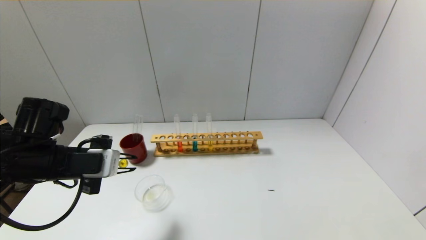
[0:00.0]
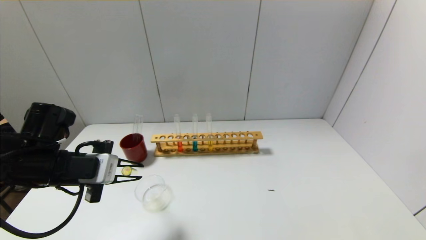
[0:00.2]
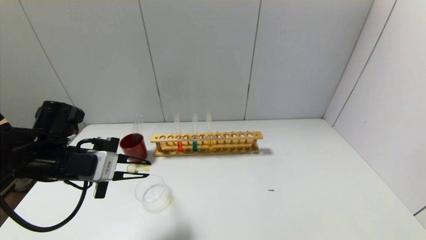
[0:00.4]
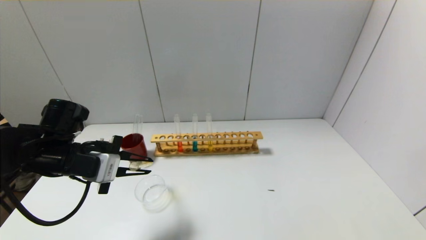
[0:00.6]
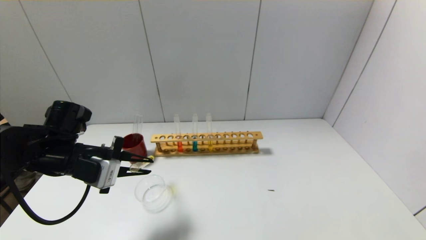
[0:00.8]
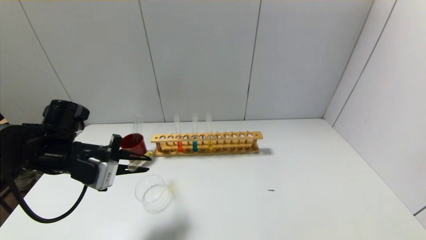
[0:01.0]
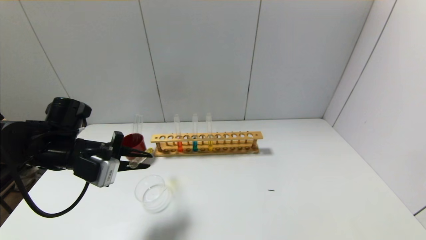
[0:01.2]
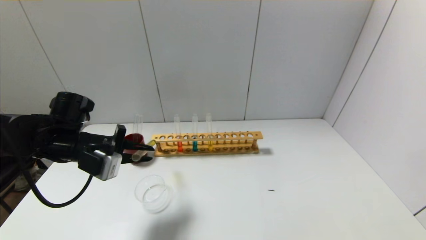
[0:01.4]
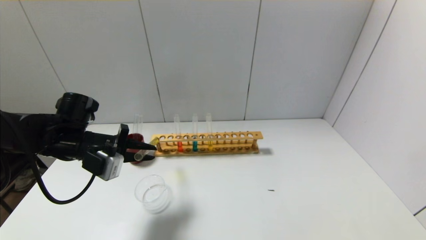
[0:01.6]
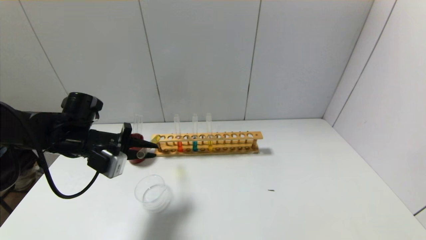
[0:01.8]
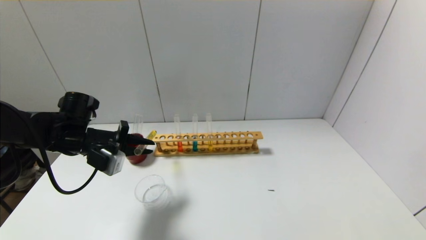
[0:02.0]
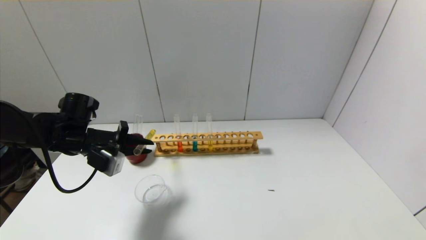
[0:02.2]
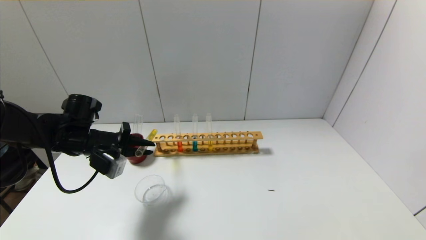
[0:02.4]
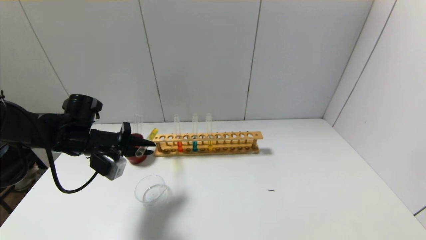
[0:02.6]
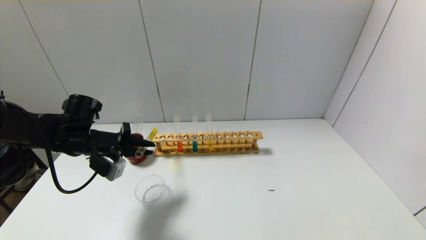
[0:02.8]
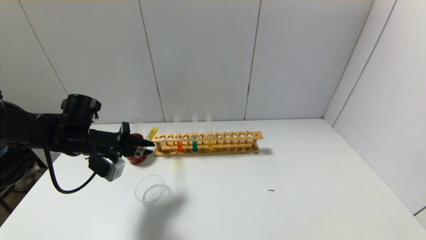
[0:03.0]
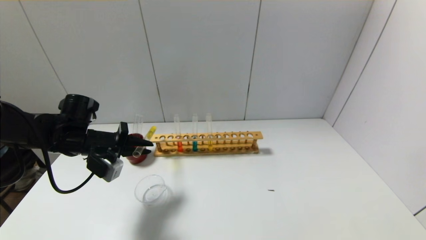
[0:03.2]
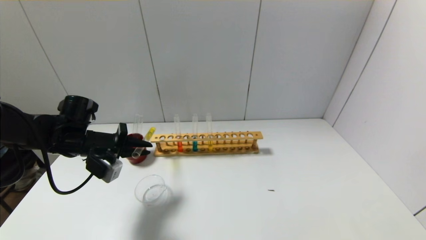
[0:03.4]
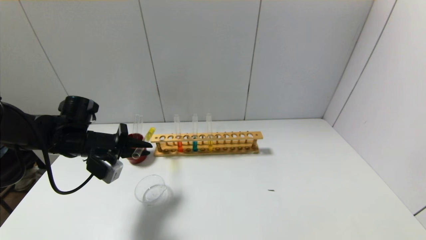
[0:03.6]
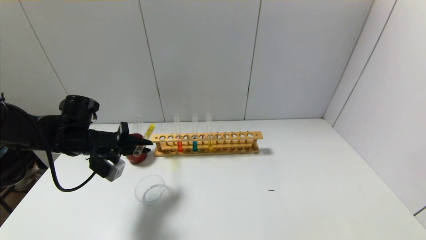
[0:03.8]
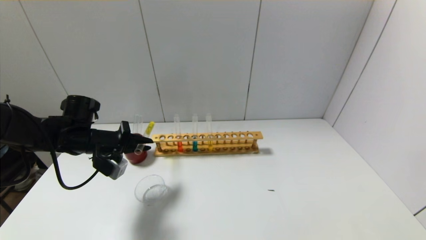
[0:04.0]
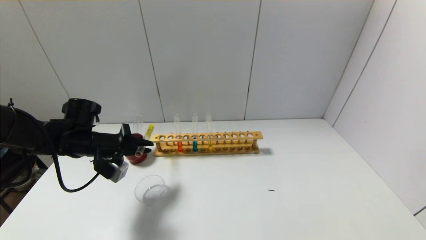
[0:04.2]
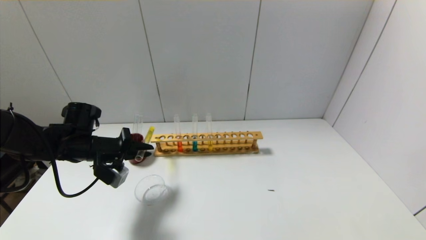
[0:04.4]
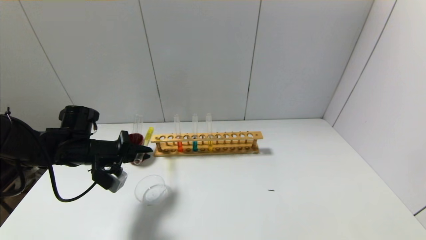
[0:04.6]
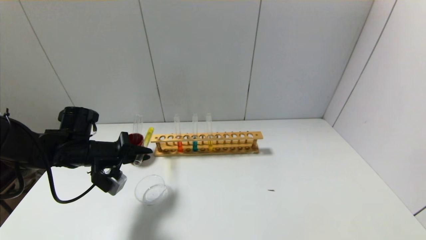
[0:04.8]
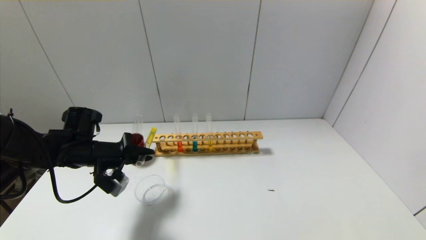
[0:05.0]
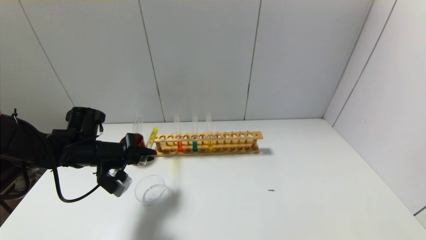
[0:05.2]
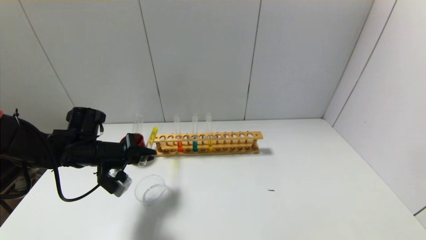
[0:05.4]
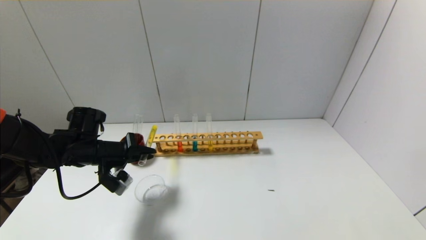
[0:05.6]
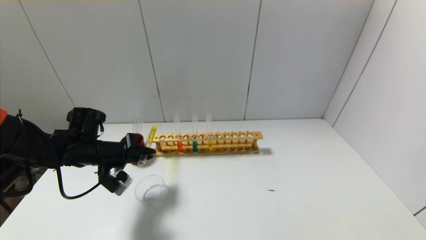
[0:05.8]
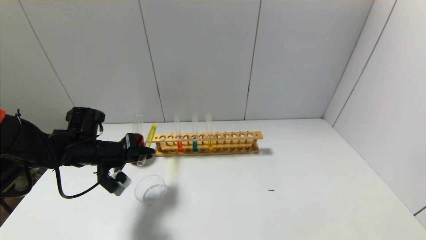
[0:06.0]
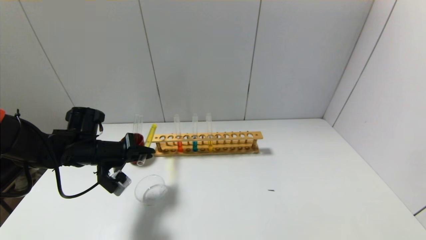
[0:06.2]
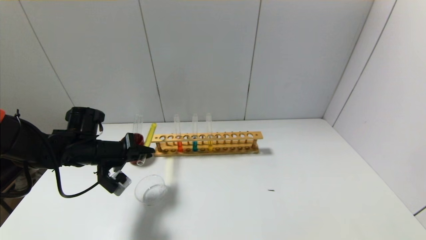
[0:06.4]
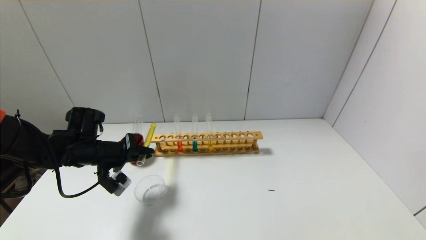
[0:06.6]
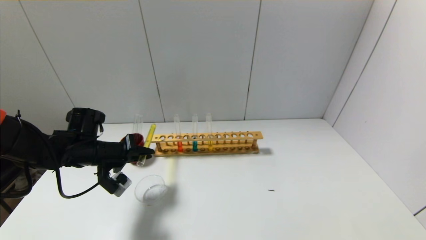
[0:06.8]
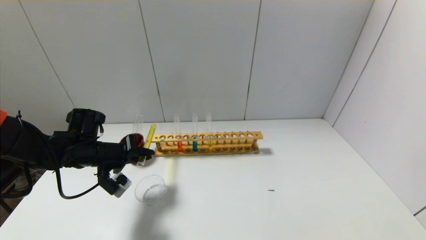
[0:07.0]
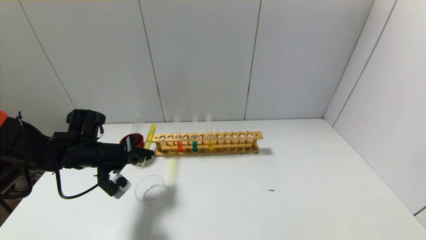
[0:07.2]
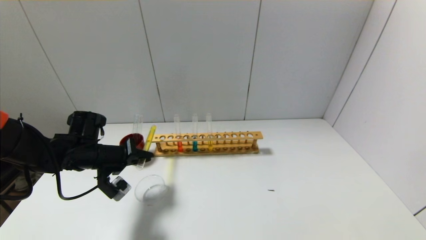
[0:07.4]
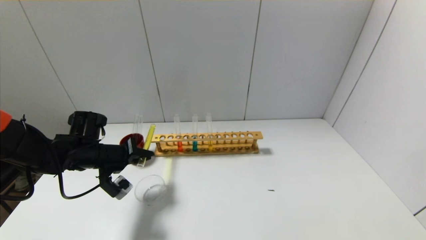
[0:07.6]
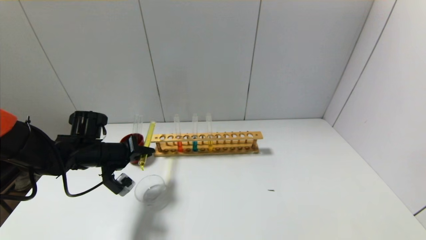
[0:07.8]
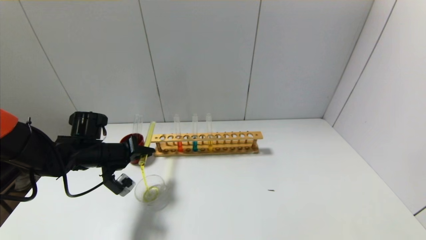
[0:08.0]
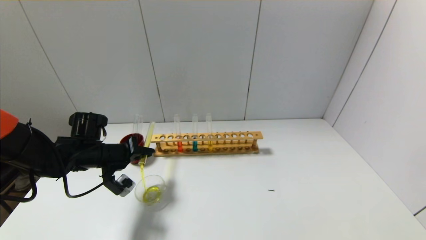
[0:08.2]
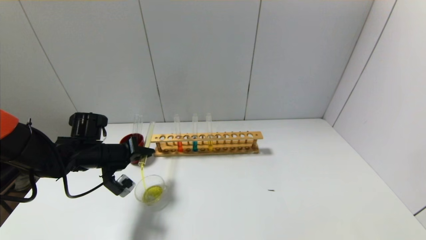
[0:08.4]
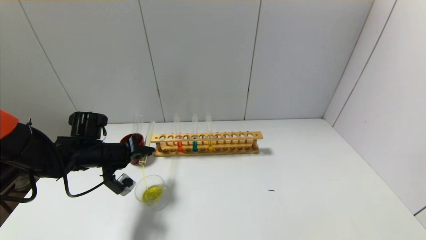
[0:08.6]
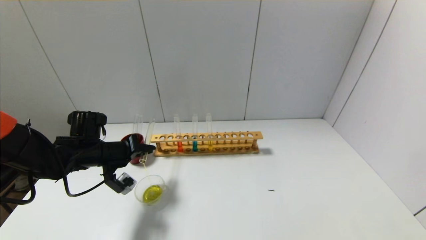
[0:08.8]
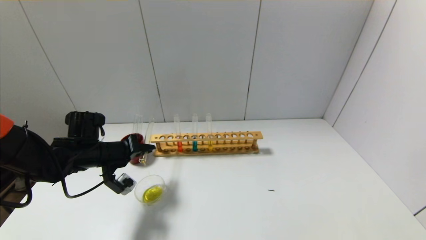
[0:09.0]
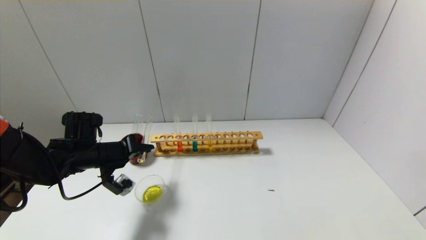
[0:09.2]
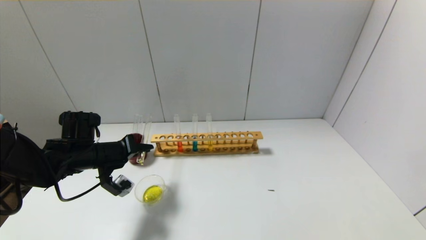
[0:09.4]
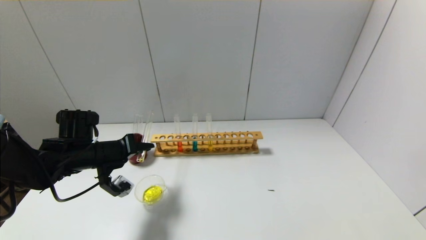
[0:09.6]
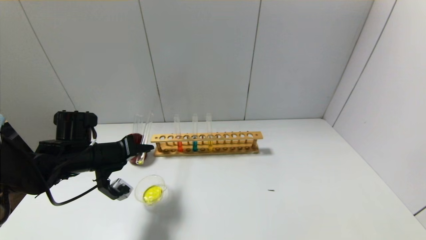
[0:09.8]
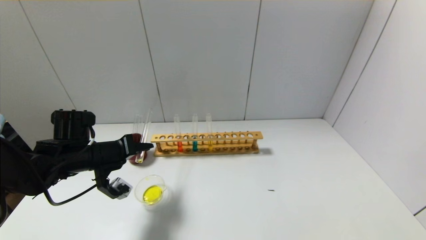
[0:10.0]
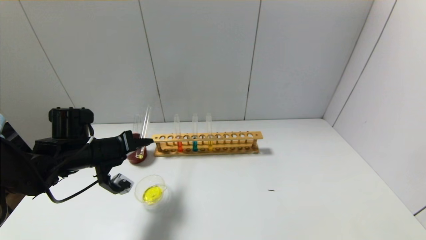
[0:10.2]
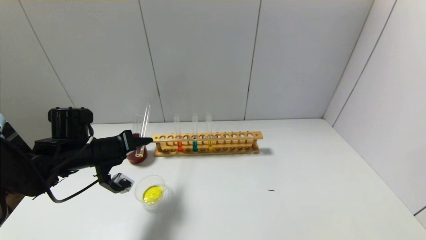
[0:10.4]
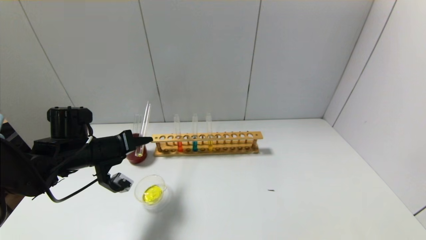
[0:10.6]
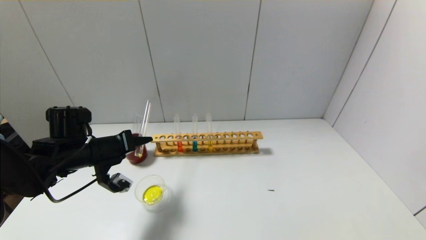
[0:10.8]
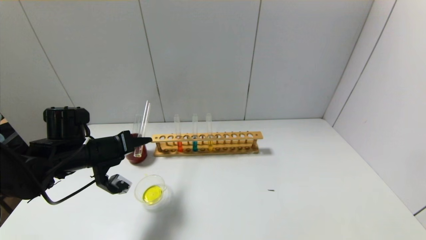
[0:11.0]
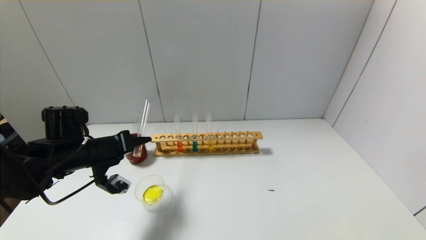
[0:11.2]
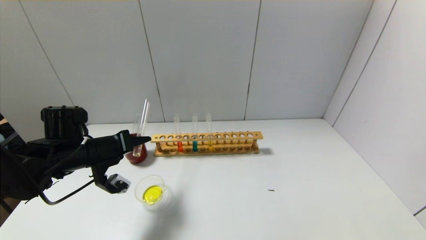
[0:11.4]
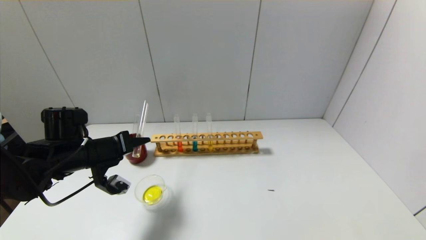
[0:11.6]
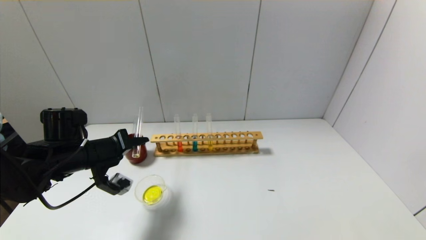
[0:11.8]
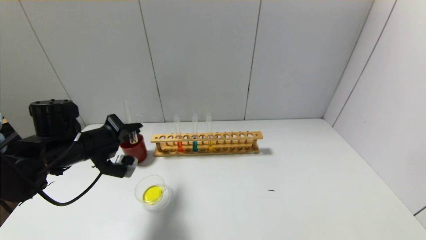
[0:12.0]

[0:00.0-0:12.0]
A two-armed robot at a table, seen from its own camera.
Step, 0:00.0 to 0:12.0: Pour the yellow reagent into the graduated cylinder with the left gripper.
0:00.0 to 0:01.6: The left gripper heads forward, covering about 5 cm.
0:01.6 to 0:03.0: There are only small adjustments of the grippers.
0:03.0 to 0:06.0: The grippers stay close to where they were, moving slightly.
0:06.0 to 0:09.0: The grippers move only a little.
0:09.0 to 0:10.4: The grippers move only a little.

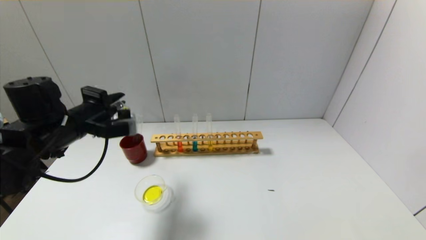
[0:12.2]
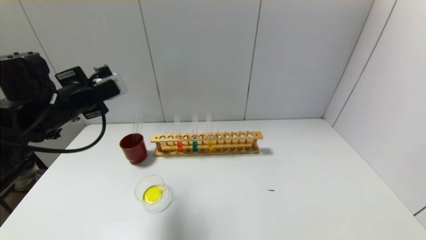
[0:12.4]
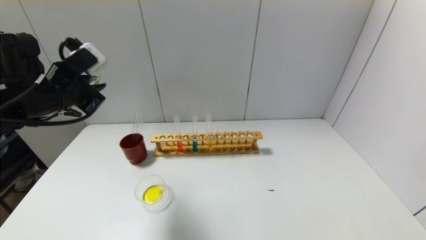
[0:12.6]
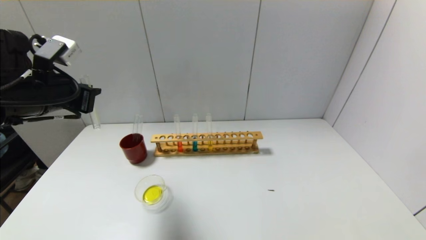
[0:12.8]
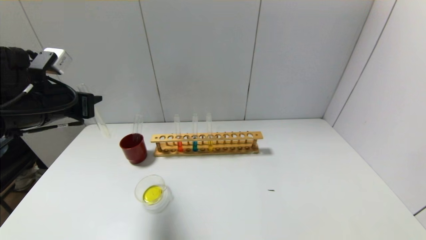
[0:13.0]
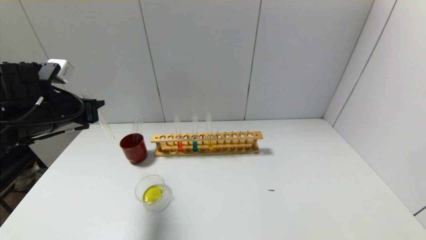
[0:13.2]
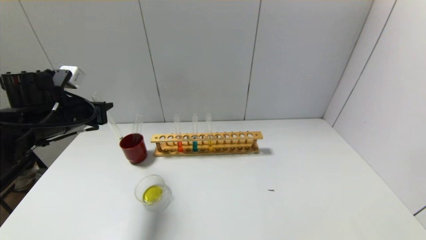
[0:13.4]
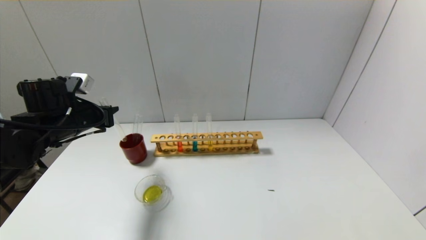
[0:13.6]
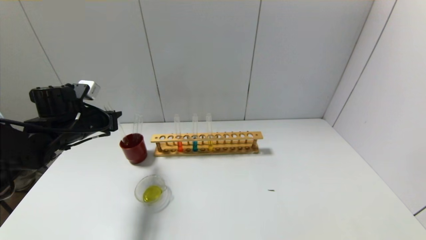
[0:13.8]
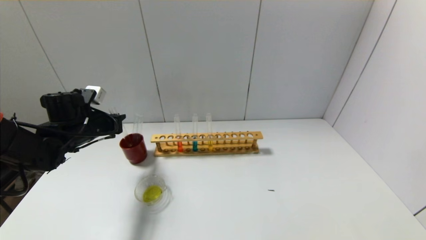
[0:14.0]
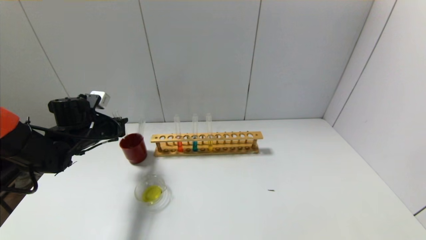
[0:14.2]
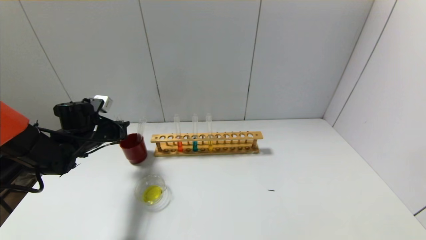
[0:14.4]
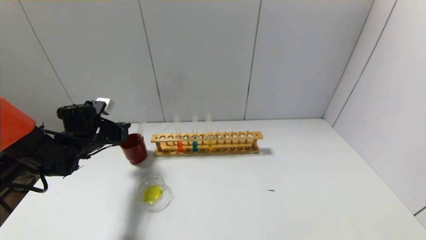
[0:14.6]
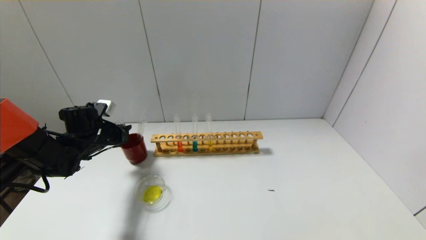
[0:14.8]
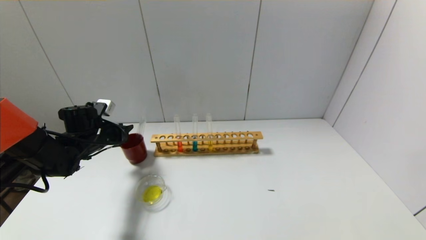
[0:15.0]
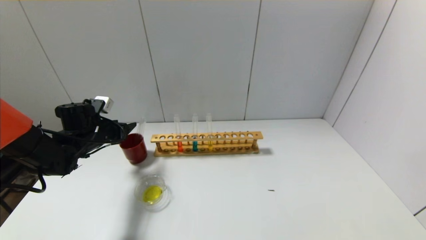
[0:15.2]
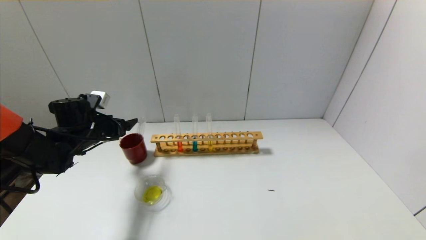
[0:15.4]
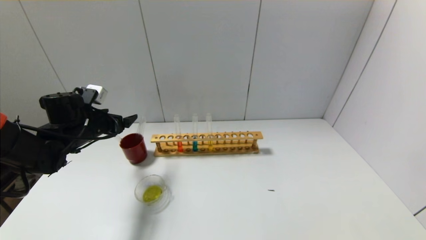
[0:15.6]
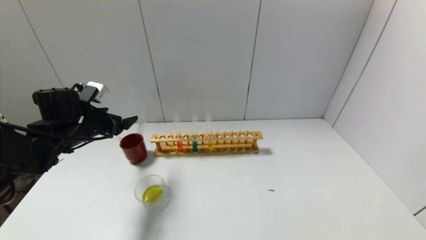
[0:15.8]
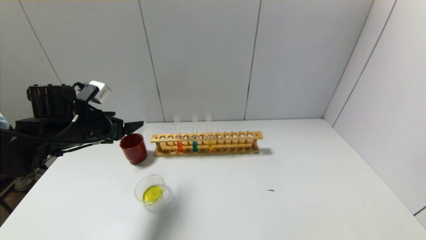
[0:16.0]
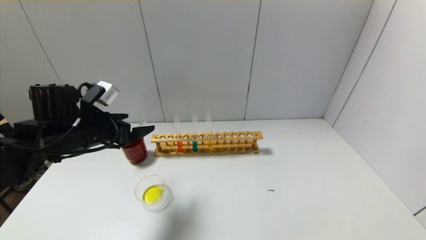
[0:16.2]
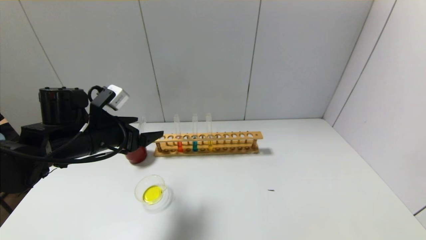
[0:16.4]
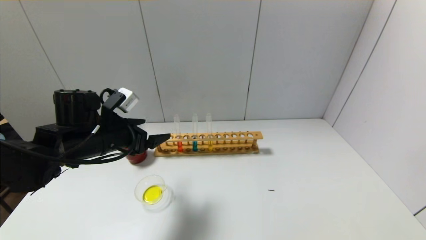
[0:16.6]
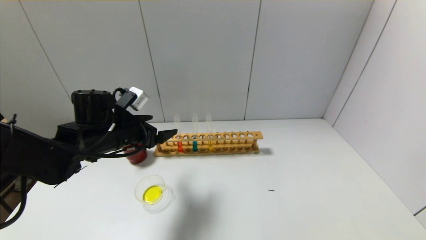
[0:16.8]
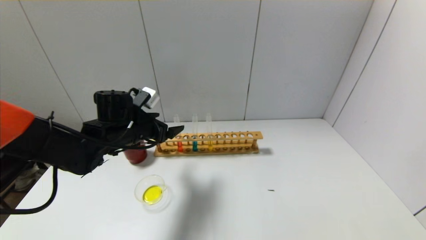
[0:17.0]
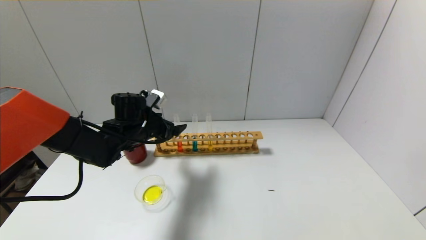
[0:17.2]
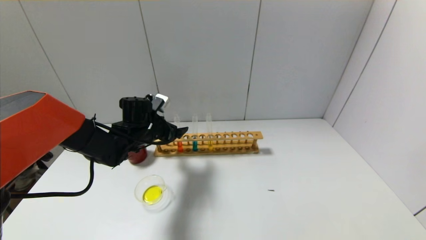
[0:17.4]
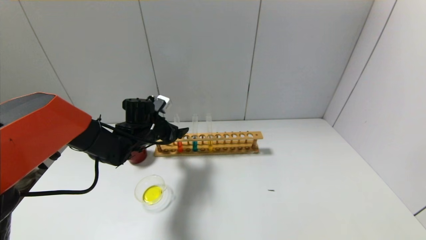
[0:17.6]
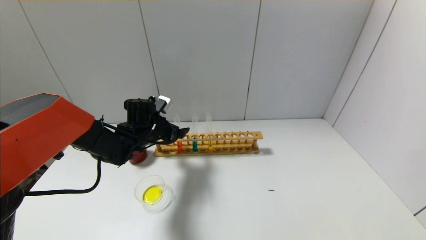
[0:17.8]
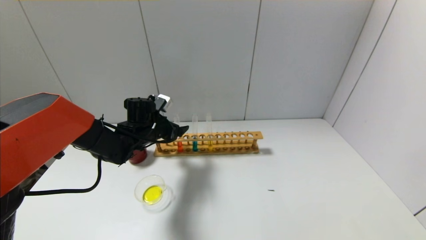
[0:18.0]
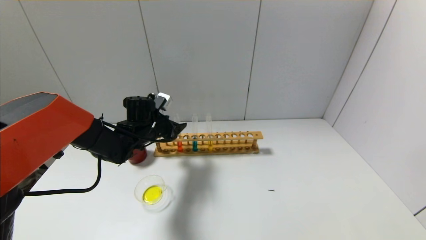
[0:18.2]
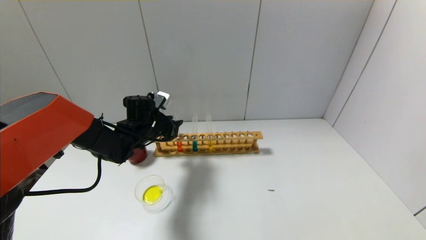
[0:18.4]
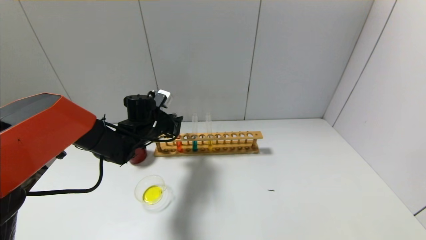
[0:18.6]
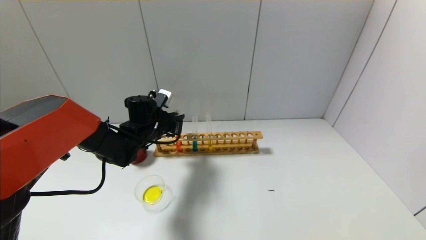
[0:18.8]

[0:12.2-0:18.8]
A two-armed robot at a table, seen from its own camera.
Step, 0:12.2 to 0:15.0: Place the test tube into the brown cup with the left gripper.
Step, 0:15.2 to 0:18.6: Grasp the red reagent with the left gripper.
0:12.2 to 0:13.8: The left gripper is displaced forward by some 5 cm.
0:13.8 to 0:15.4: The left gripper opens up.
0:15.4 to 0:17.2: The left gripper is displaced to the right by approximately 15 cm.
0:17.2 to 0:18.8: The left gripper closes.
